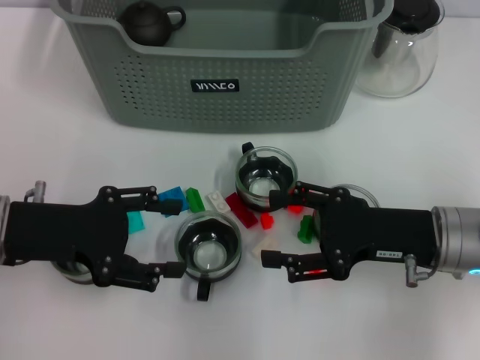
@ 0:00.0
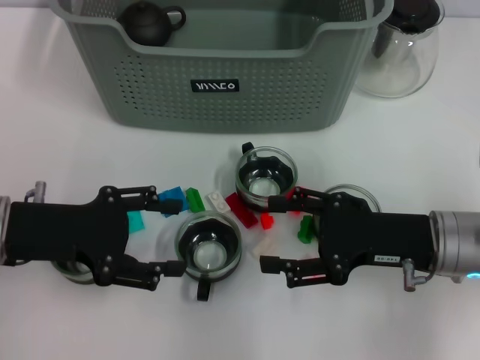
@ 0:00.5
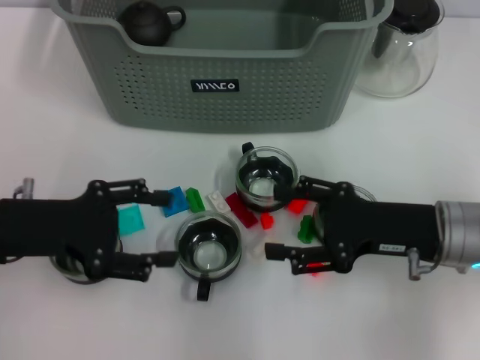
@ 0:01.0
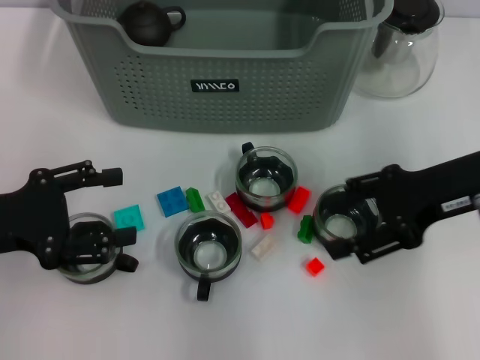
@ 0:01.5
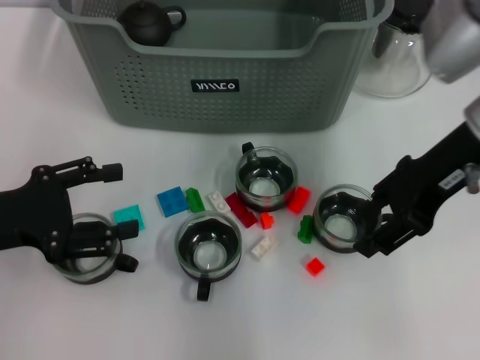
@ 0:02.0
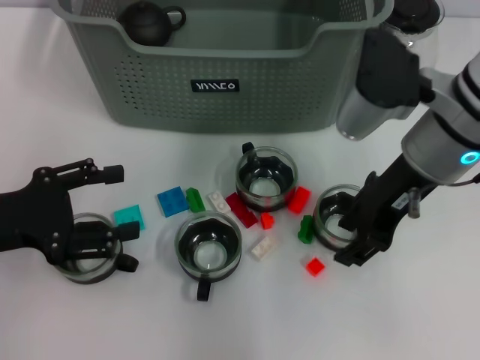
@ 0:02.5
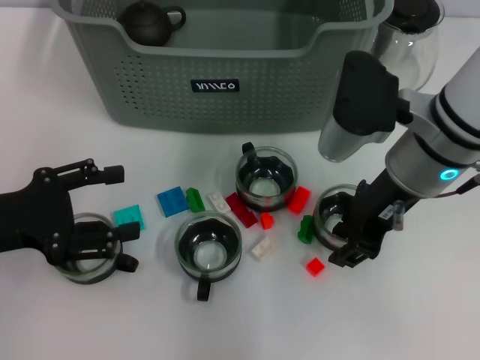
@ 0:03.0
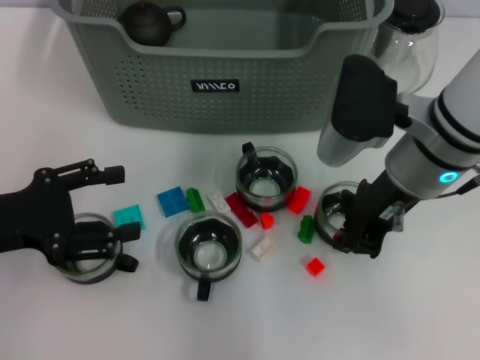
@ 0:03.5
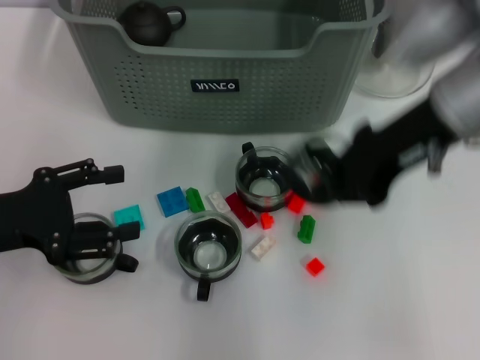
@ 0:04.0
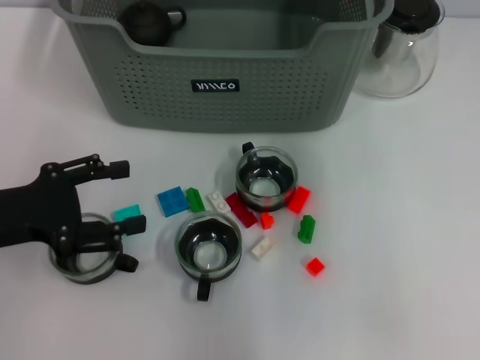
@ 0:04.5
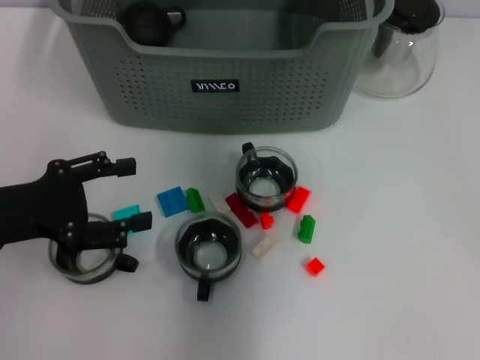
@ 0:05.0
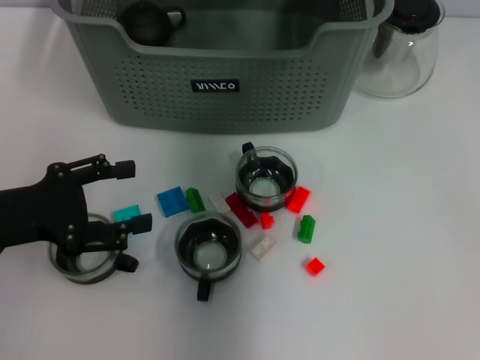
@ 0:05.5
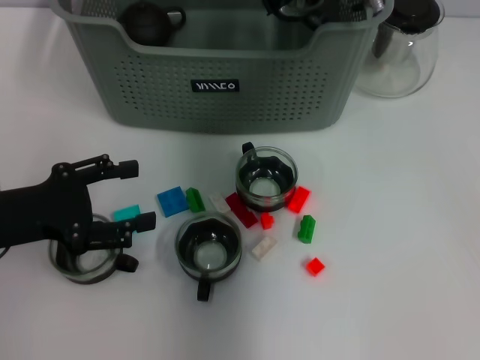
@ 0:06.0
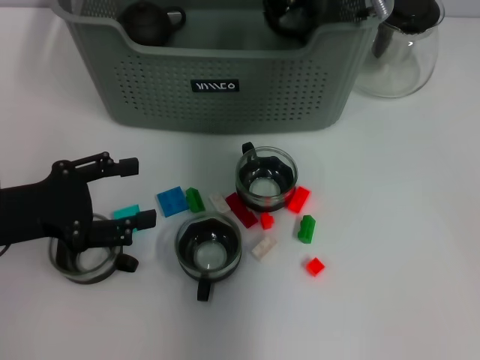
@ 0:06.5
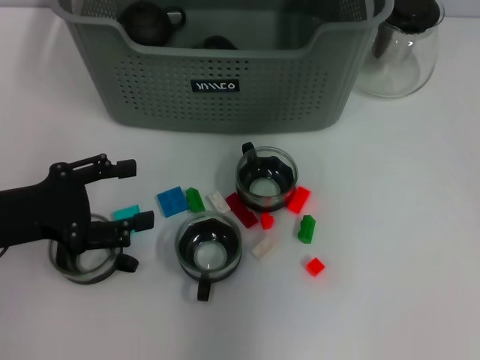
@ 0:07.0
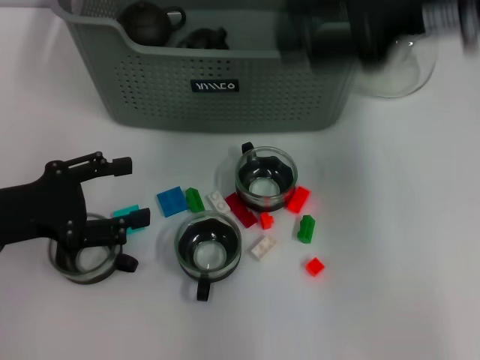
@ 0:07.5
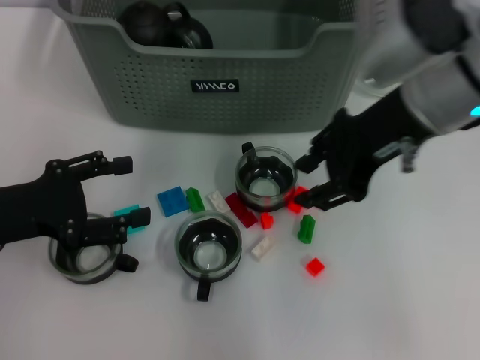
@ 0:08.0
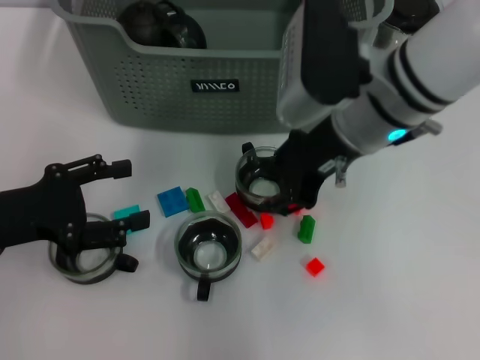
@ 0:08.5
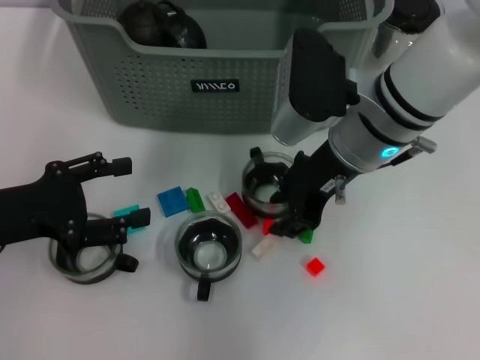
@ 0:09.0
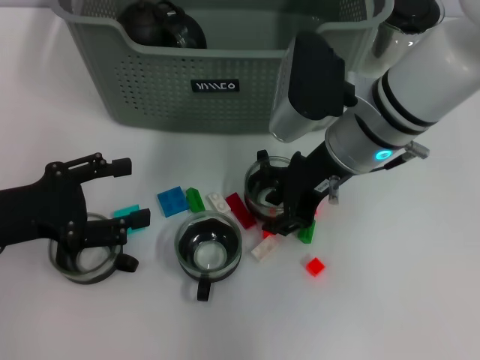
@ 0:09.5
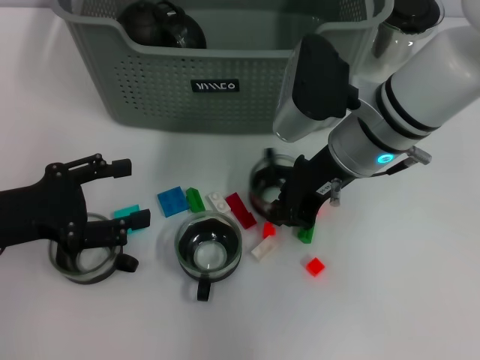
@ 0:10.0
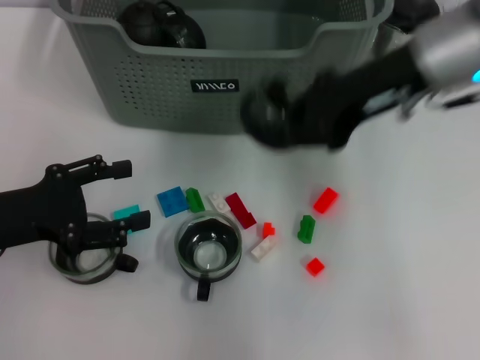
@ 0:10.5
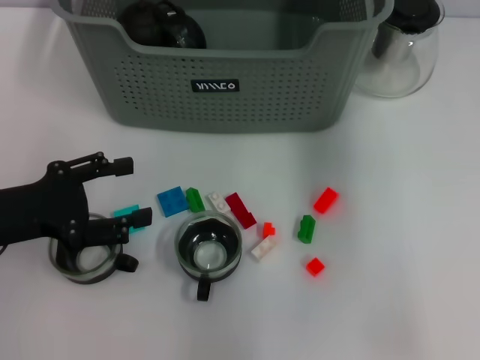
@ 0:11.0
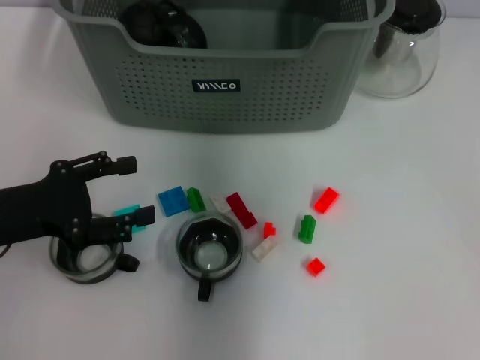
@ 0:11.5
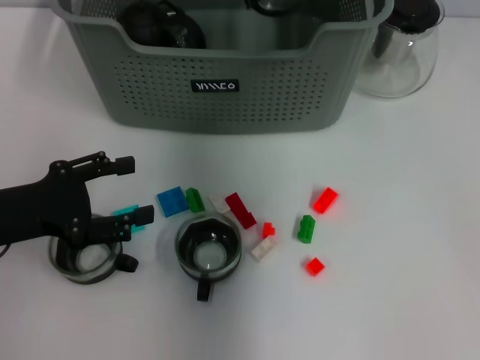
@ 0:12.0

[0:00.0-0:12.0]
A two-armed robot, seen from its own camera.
Task of the whole recording: pick up the teacup on the table and place it into the storage bin, pick up the block on the table and place it into the storage bin.
Step, 0:00.0 to 0:03.0: Grasp the cup with right gripper.
Step, 0:04.0 to 0:06.5: Place the cup in the storage box with right gripper.
Step, 0:07.0 to 0:10.0: Grasp the cup with right gripper.
0:00.0 to 0:02.0: The right gripper heads upward and forward, covering about 15 cm.
0:02.0 to 0:04.0: The right gripper closes.
0:04.0 to 0:06.0: The right gripper goes some 15 cm forward and to the left.
0:06.0 to 0:08.0: The right gripper travels backward and to the right by some 15 cm, and opens.
0:08.0 to 0:10.0: The right gripper is displaced downward by approximately 10 cm.
0:10.0 to 0:12.0: The right gripper is displaced forward, upward and to the left by approximately 15 cm.

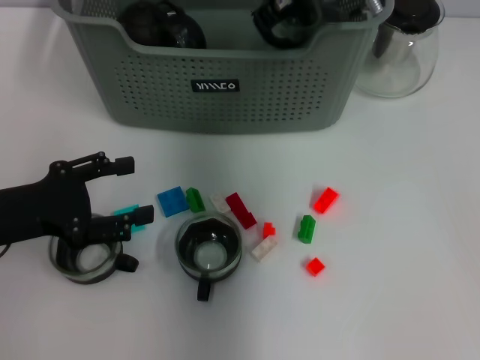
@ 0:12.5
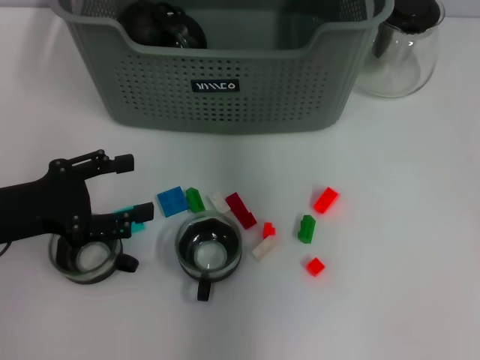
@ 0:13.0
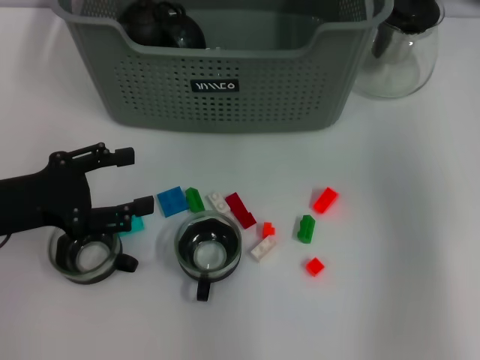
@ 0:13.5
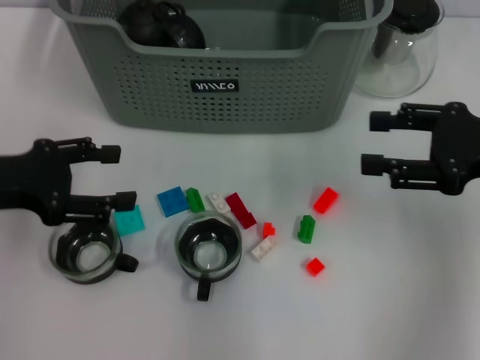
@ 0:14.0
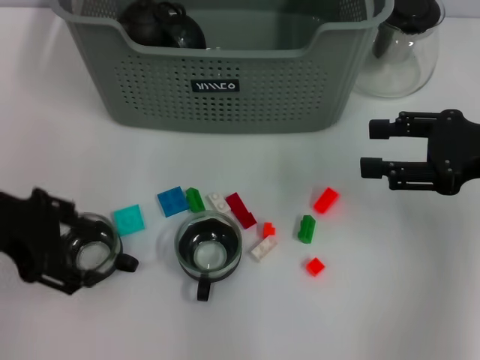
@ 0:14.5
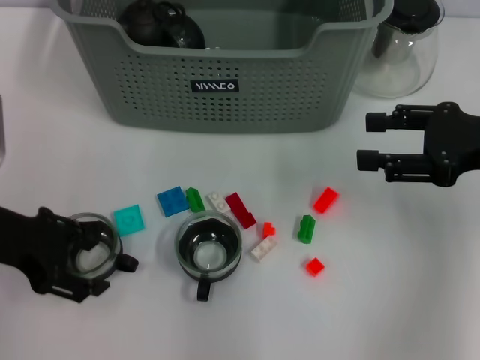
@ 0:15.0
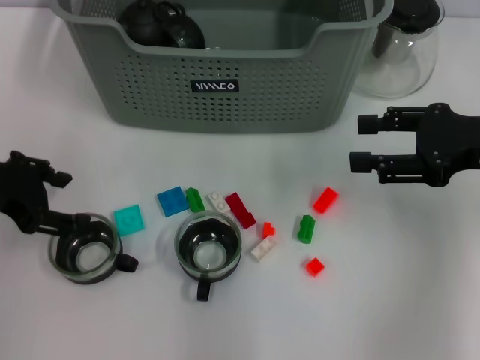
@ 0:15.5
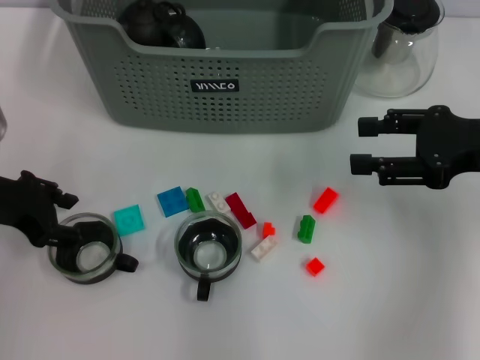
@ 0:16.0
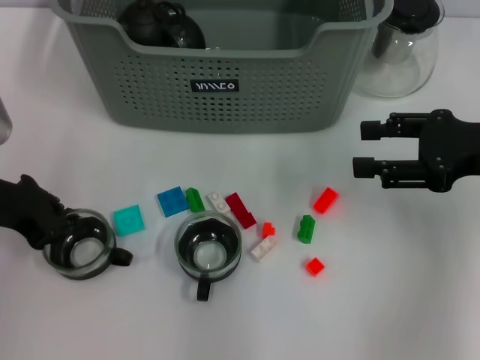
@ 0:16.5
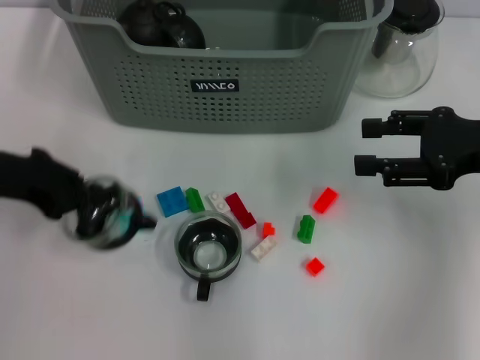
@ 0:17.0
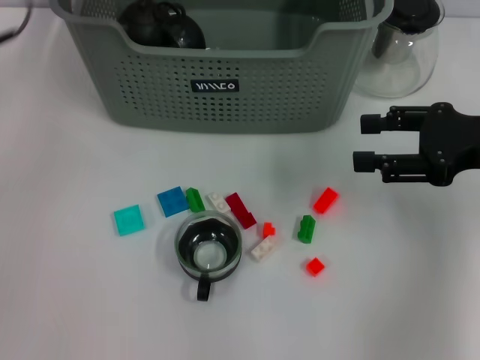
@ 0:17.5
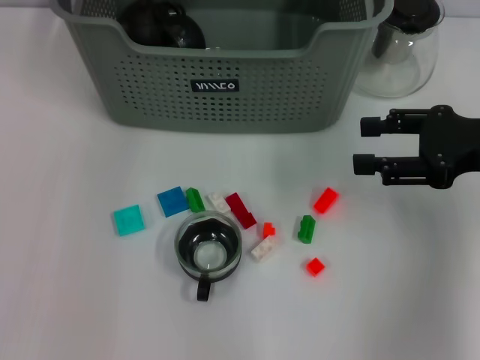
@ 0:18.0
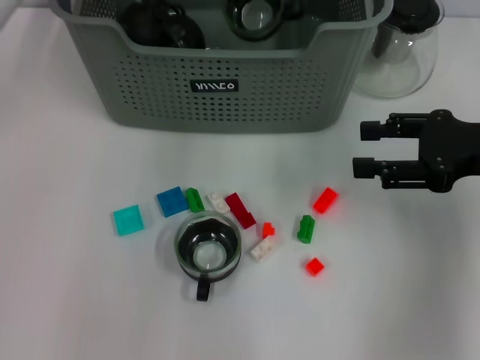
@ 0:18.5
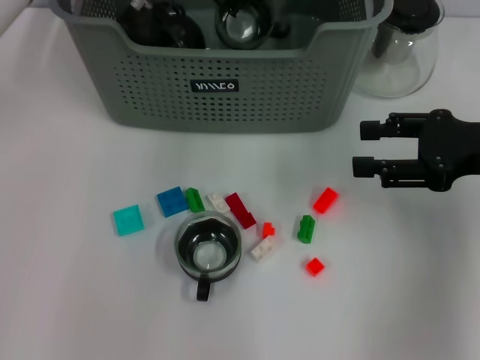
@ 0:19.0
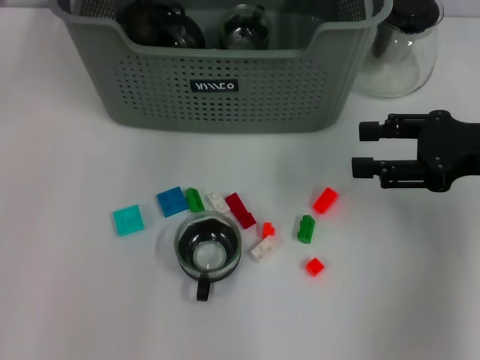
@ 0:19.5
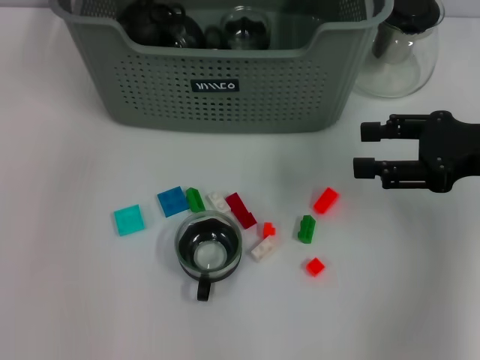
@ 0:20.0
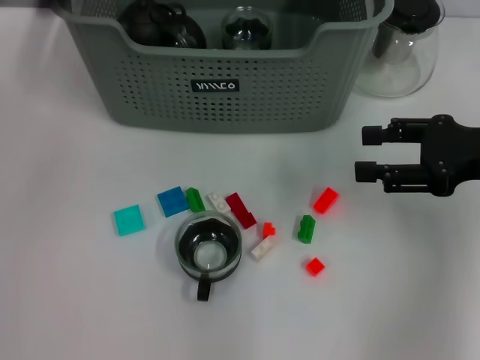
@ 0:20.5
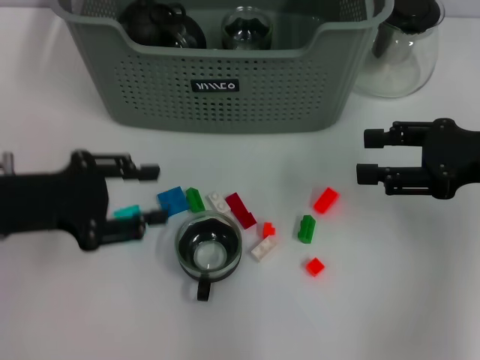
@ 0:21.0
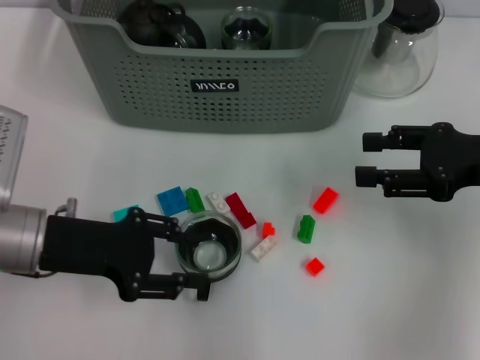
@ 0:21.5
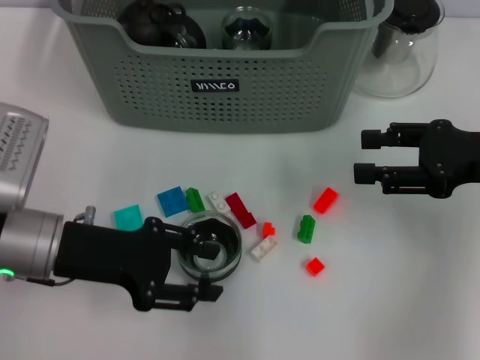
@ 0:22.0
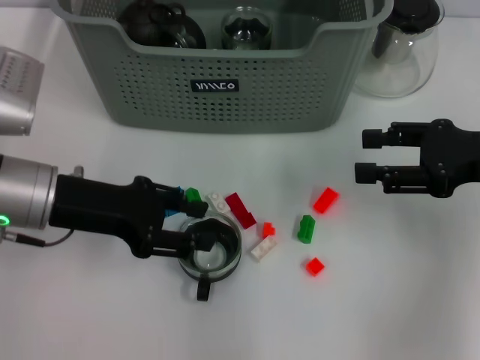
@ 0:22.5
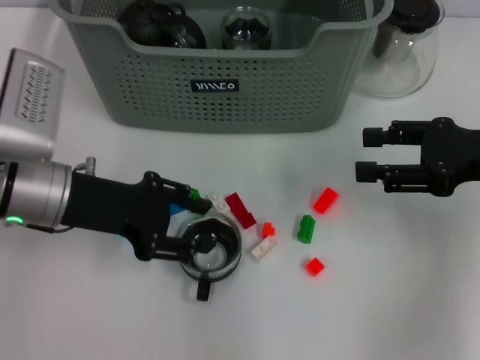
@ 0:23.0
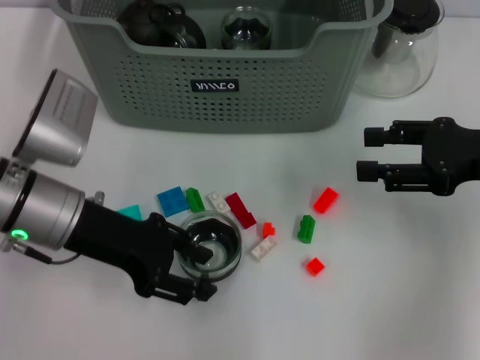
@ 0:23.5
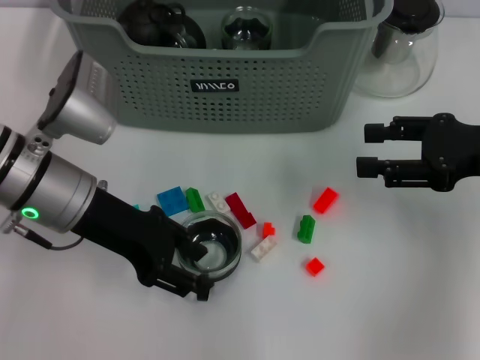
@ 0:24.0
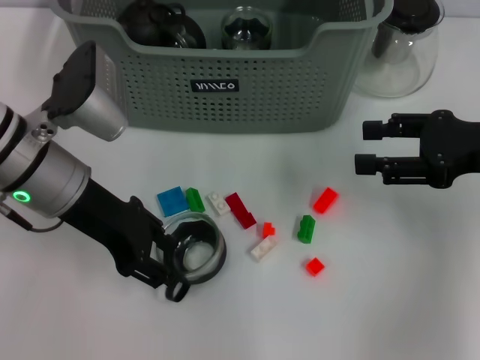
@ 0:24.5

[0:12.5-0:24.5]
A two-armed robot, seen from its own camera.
Task of the whole recording: pick up the teacup on the table and place it into the storage bin, pick up the block on the table and place it into the storage bin.
Step, 0:13.0 to 0:16.5: Grasp the cup with left gripper.
Step, 0:17.0 to 0:19.0: Place the cup in the storage box with left gripper.
0:12.5 to 0:14.5: The left gripper is displaced upward by about 10 cm. The right gripper moves to the right and backward, some 30 cm, and opens.
0:14.5 to 0:16.5: The left gripper heads downward, covering roughly 5 cm, and closes.
0:16.5 to 0:18.5: The left gripper moves to the right, forward and upward, approximately 30 cm.
0:18.5 to 0:20.5: The left gripper goes roughly 25 cm to the left and backward, and opens up.
0:20.5 to 0:22.5: The left gripper heads downward and to the right, covering roughly 15 cm.

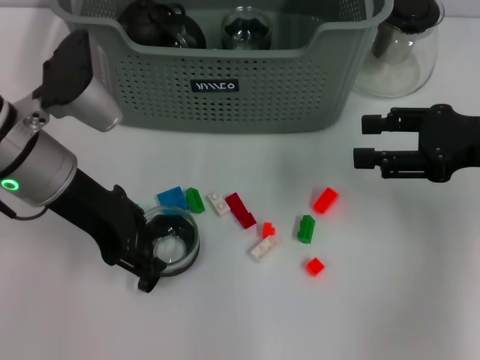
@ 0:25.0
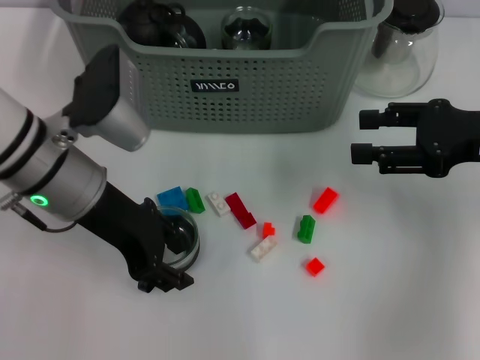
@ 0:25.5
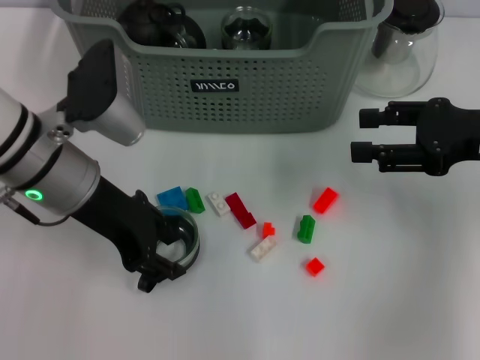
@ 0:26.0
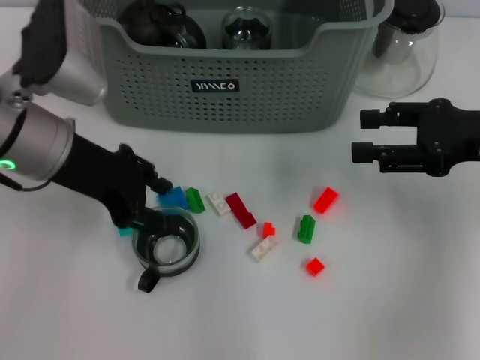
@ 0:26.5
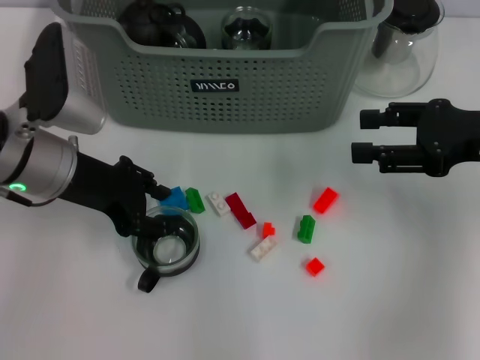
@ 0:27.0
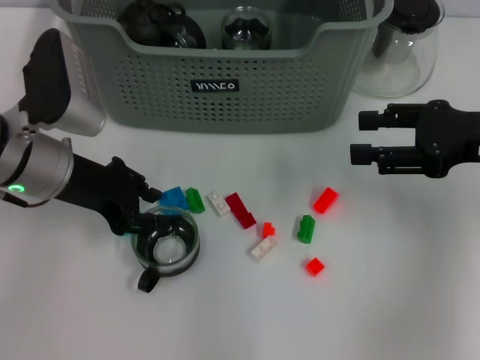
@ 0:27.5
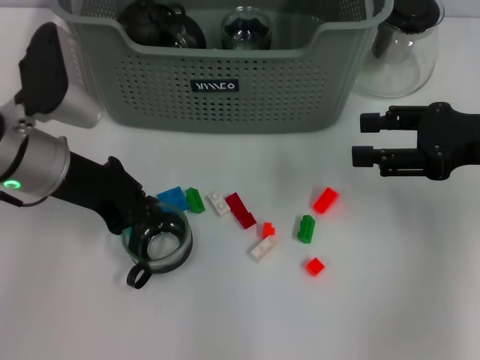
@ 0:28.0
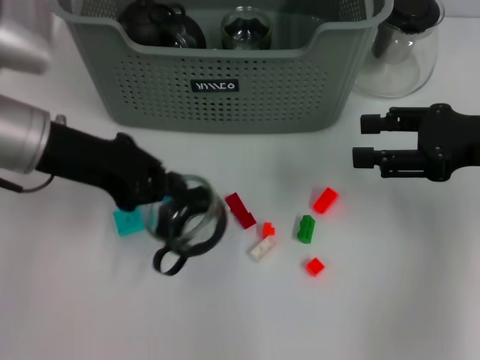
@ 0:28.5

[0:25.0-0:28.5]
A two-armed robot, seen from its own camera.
Task of the whole recording: pick up the teacup on the table and place it into the storage bin, pick up the block on the table and place it into the storage bin.
Step, 0:25.0 to 0:27.5: Grasp the cup with left gripper.
0:25.0 to 0:27.0: The grippers make only small movements.
0:27.0 to 0:28.5: The left gripper closes.
